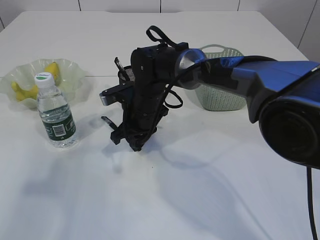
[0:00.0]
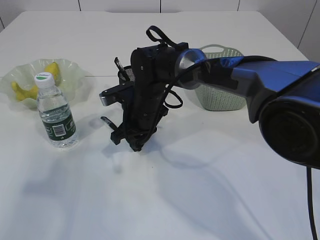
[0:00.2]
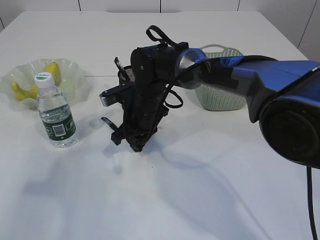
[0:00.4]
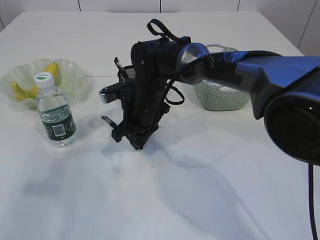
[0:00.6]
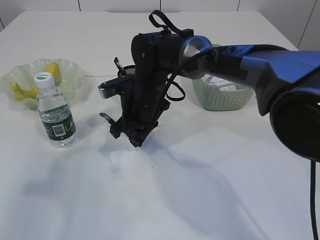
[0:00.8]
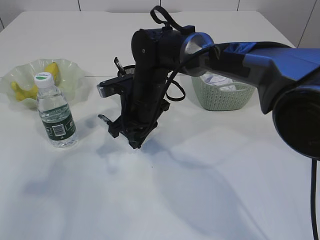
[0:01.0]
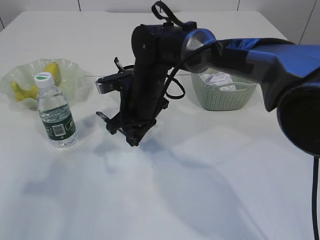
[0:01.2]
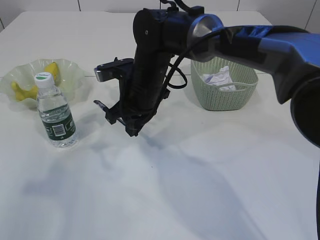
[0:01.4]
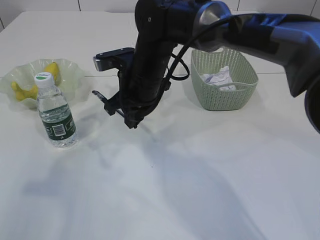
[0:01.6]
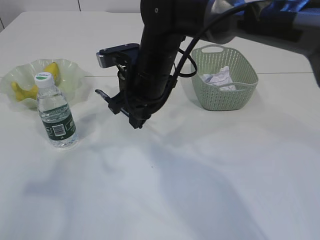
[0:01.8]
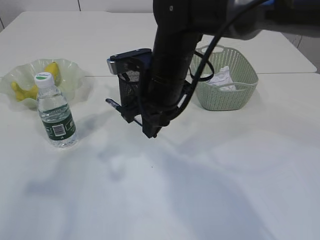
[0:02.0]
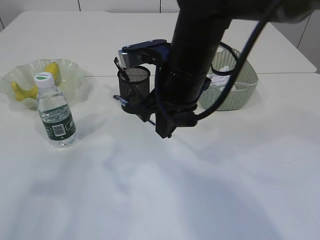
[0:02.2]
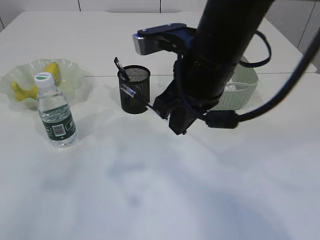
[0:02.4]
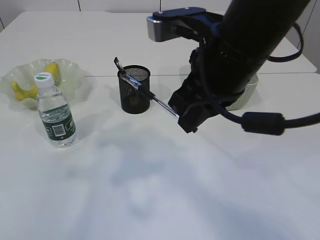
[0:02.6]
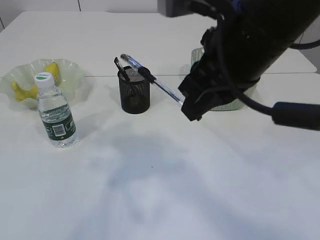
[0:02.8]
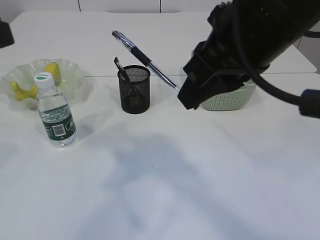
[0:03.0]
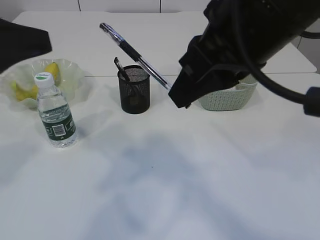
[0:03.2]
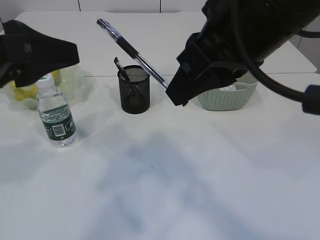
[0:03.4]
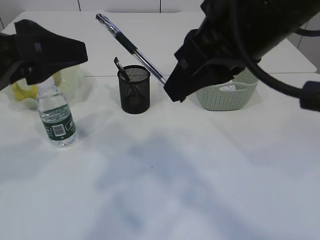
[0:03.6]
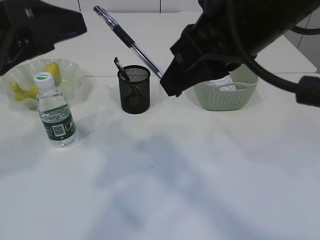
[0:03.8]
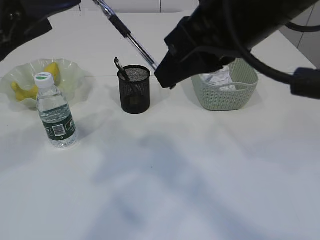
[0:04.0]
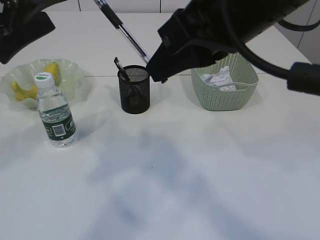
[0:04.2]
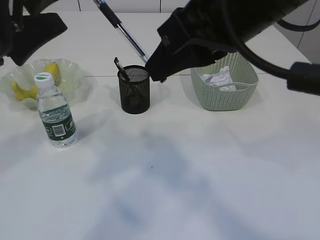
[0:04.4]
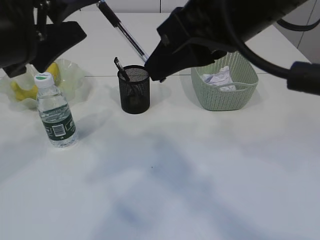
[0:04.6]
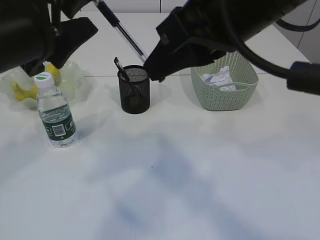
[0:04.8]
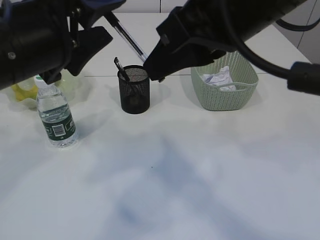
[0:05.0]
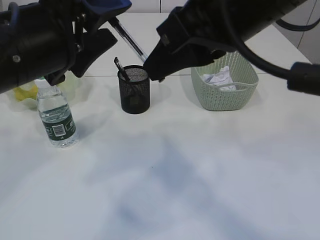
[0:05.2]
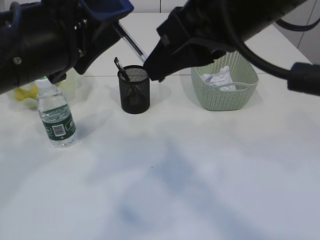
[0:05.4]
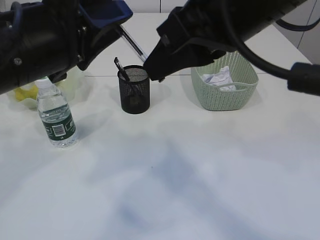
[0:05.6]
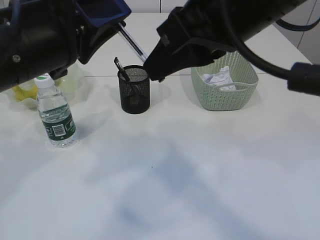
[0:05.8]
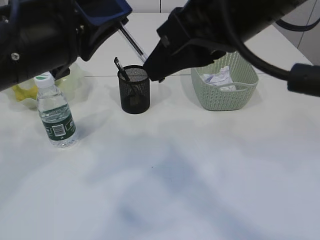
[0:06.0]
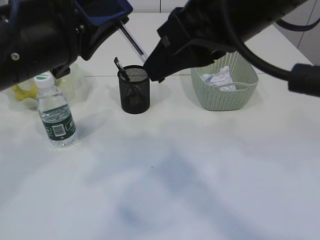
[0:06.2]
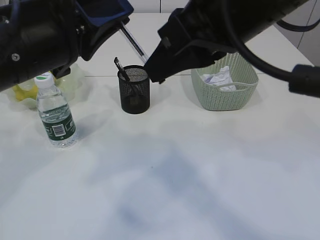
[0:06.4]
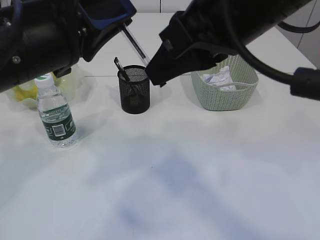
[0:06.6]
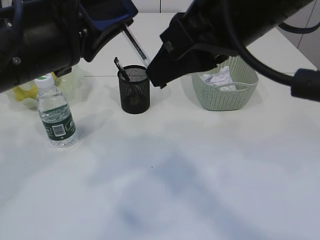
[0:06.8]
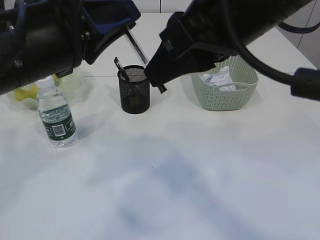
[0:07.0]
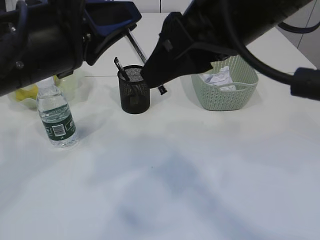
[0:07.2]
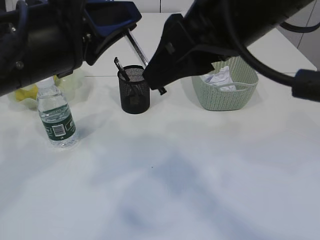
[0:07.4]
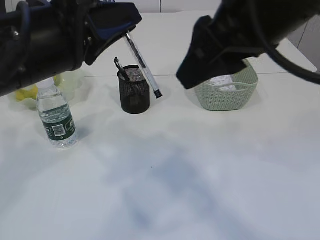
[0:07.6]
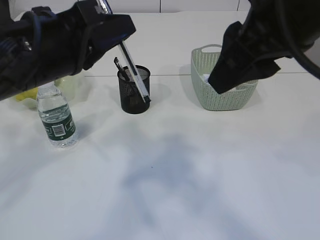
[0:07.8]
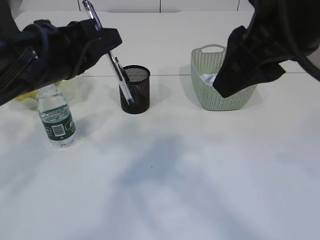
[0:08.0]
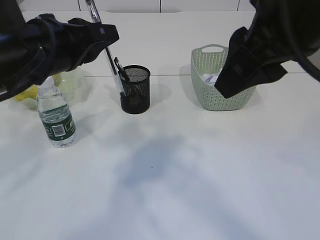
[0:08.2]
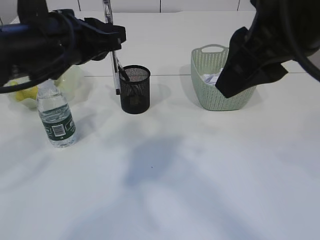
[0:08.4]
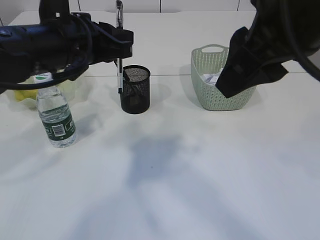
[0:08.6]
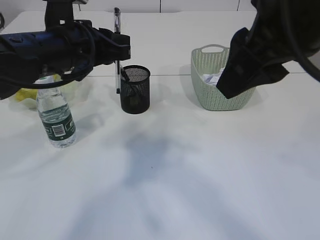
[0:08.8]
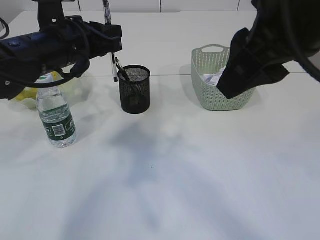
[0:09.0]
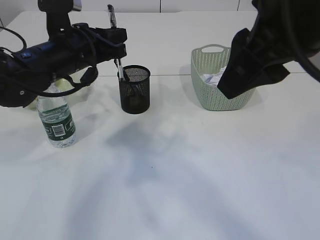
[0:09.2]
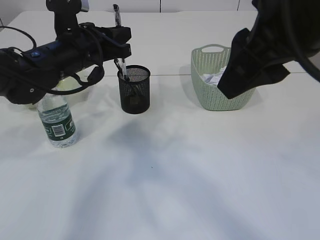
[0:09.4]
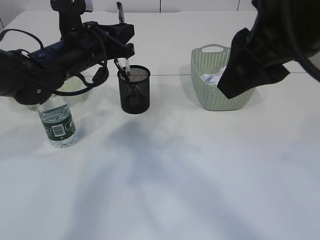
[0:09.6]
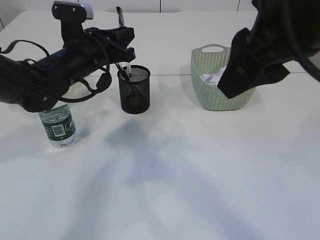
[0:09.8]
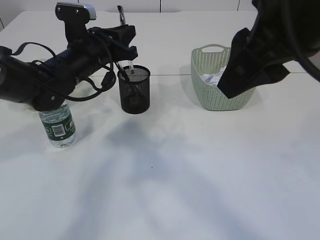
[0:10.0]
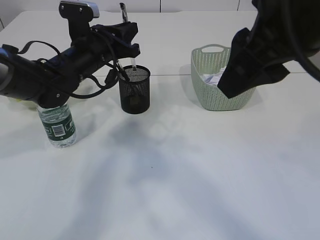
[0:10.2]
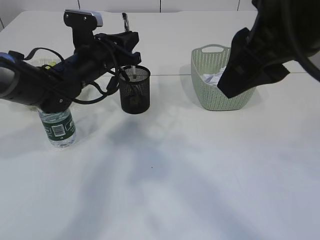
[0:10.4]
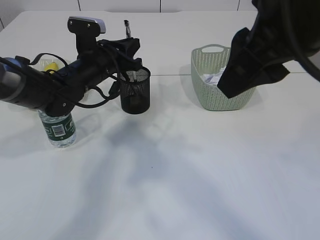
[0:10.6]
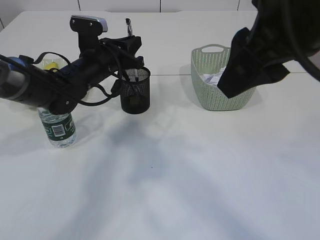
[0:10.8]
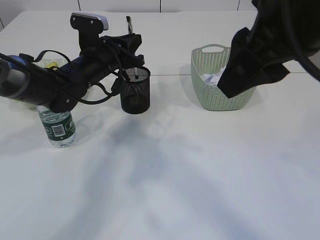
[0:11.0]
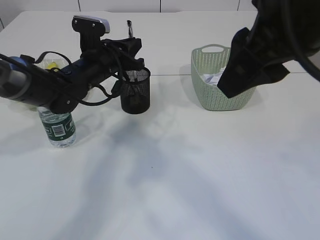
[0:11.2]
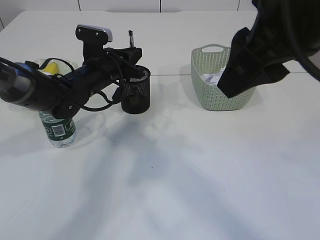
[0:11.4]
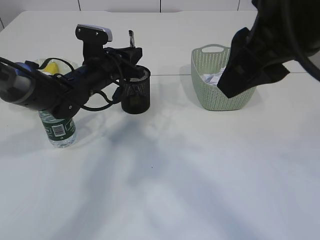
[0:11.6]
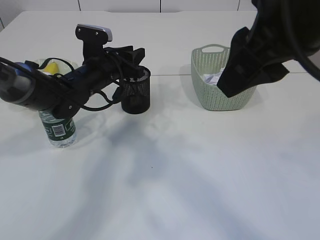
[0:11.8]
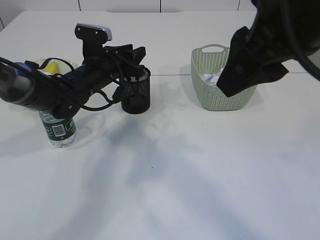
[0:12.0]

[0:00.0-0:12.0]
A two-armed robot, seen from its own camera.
Step, 0:01.4 to 0:07.8: transfer the pen to the left arm.
0:00.0 to 0:01.6: The right gripper shifts some 10 cm upward.
0:01.6 to 0:03.0: The left gripper shifts about 5 cm to the right. Meanwhile the right gripper goes some 25 cm backward, upward and to the right.
0:03.0 to 0:04.4: The left gripper travels to the right by approximately 5 cm, and opens.
0:04.4 to 0:06.0: The left gripper changes place by some 5 cm, and closes up.
0:06.0 to 0:07.6: The right gripper opens its fingers.
0:07.6 to 0:09.0: The left gripper travels forward and downward by some 15 cm.
0:09.0 to 0:10.4: The left gripper is displaced forward and downward by roughly 10 cm.
0:10.4 to 0:12.0: The left gripper opens its fingers.

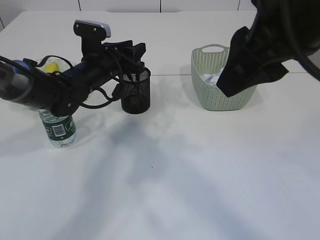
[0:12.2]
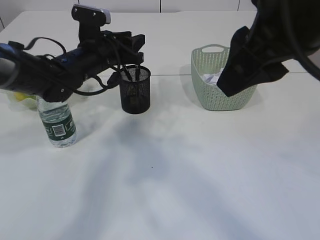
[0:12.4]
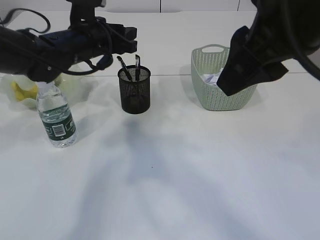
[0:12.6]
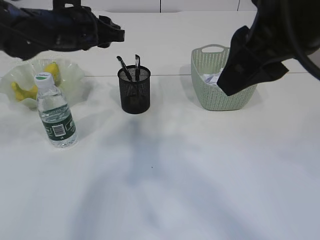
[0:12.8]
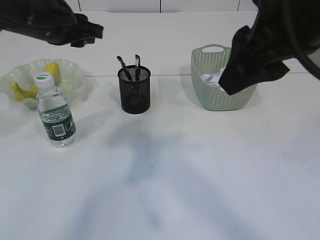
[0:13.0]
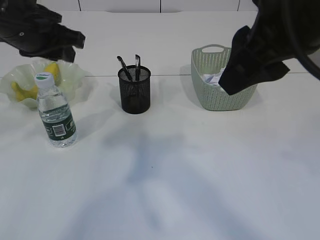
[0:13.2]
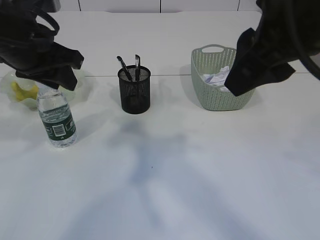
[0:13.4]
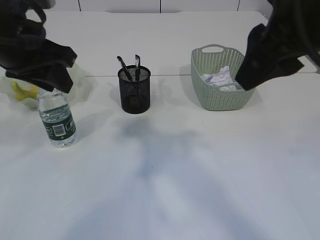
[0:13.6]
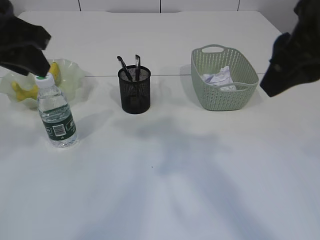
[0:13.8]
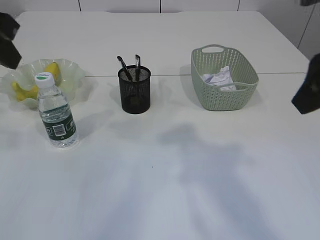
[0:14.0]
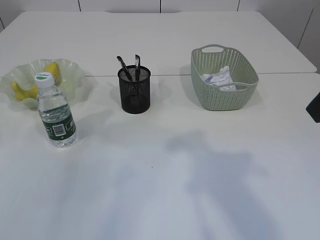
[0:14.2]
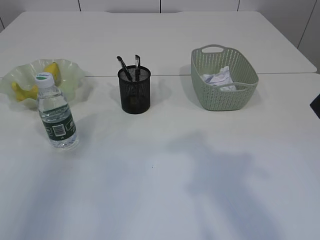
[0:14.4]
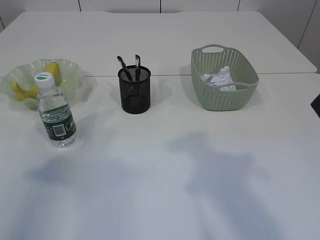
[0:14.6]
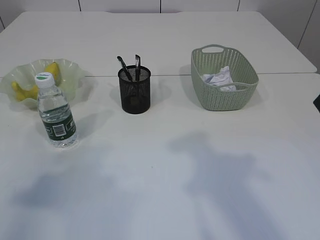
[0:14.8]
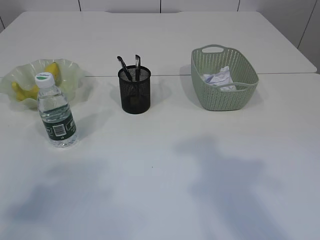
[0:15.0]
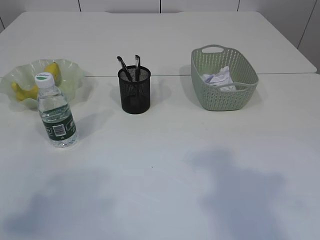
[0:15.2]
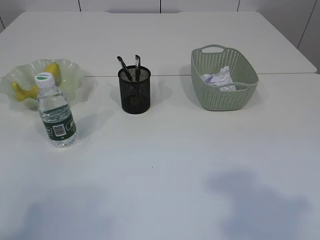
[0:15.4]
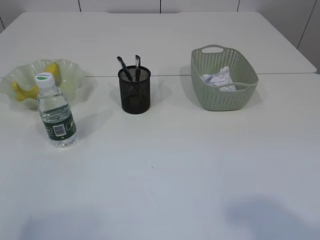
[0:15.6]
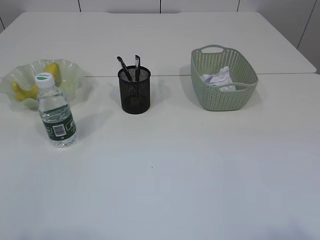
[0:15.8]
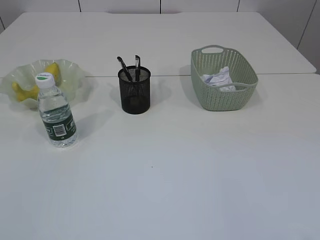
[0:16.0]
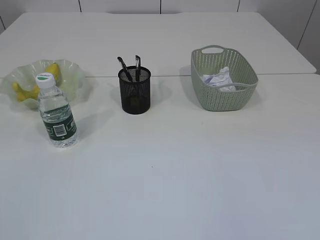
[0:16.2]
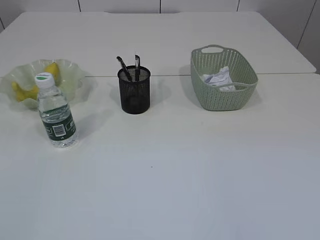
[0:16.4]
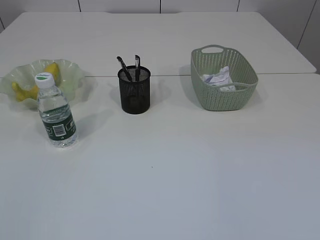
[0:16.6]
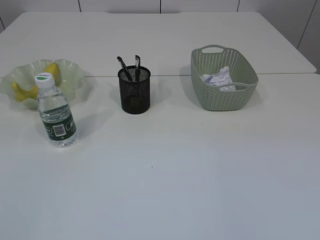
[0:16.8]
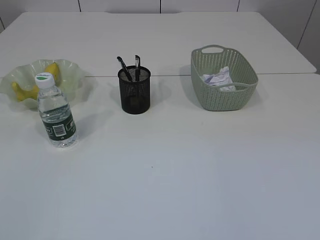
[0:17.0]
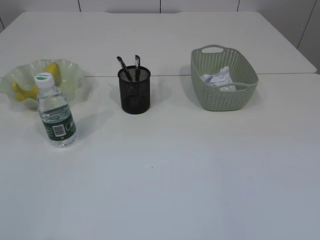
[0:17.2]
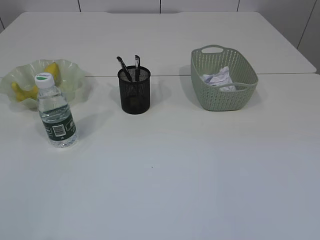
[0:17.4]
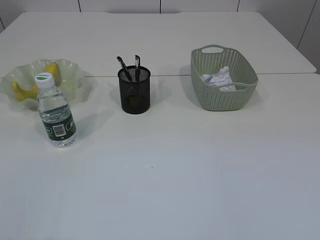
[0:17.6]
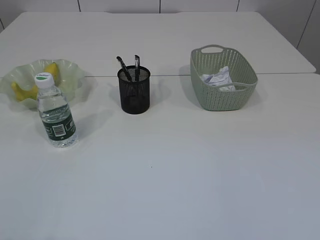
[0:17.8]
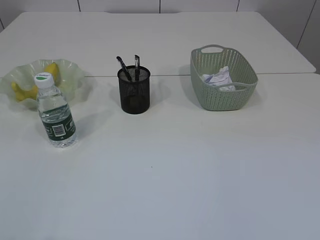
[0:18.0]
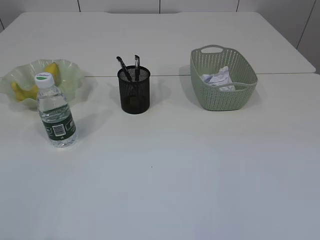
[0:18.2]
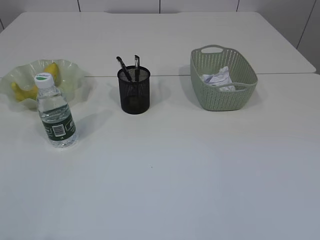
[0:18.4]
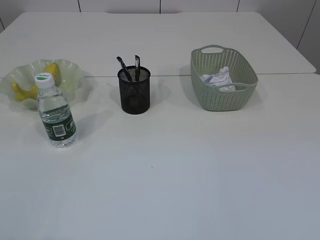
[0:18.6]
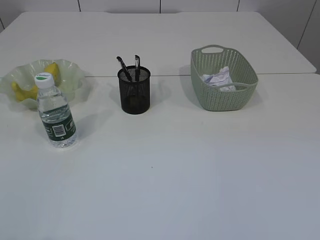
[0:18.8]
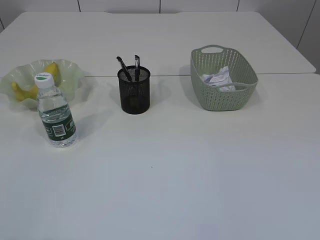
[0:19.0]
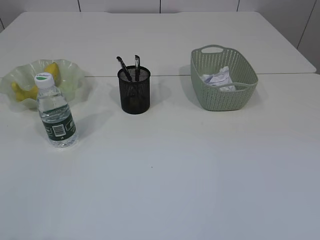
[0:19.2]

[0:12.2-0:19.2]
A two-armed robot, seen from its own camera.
0:12.2 to 0:13.6: The left gripper travels upward, backward and to the left by approximately 20 cm.
0:13.6 to 0:15.0: The left gripper moves backward and to the left, roughly 25 cm. The right gripper shifts about 10 cm to the right and backward.
0:15.0 to 0:16.4: The left gripper moves backward, roughly 15 cm.

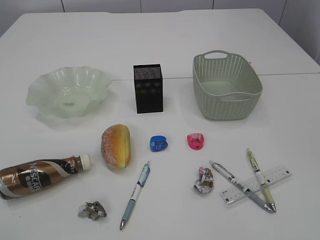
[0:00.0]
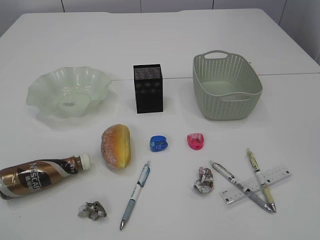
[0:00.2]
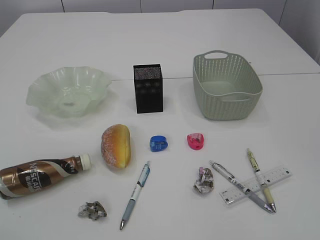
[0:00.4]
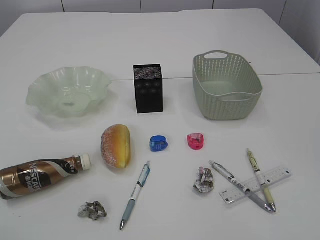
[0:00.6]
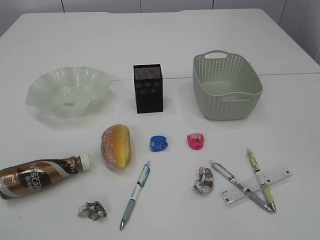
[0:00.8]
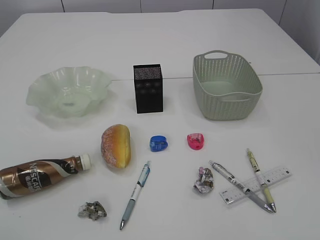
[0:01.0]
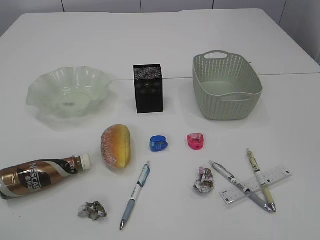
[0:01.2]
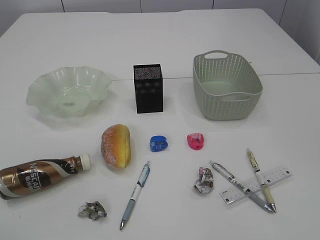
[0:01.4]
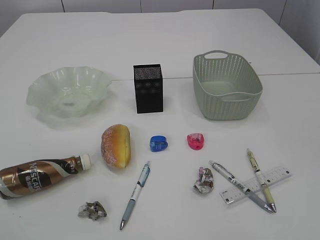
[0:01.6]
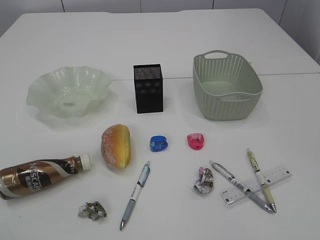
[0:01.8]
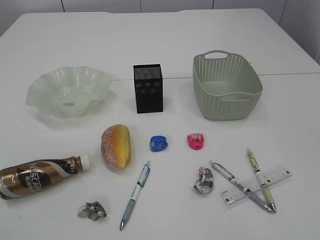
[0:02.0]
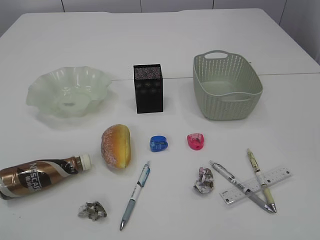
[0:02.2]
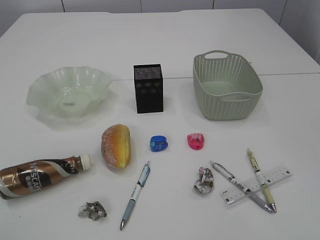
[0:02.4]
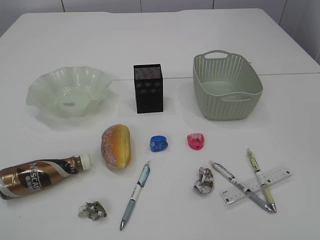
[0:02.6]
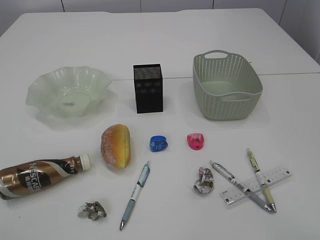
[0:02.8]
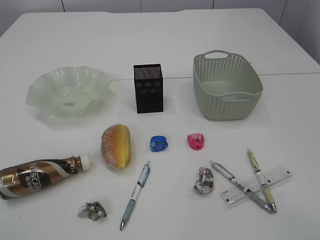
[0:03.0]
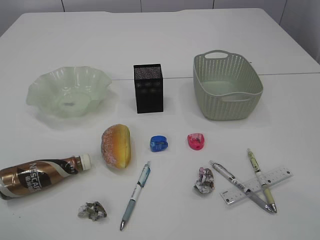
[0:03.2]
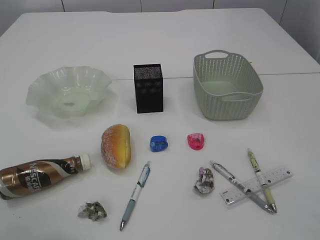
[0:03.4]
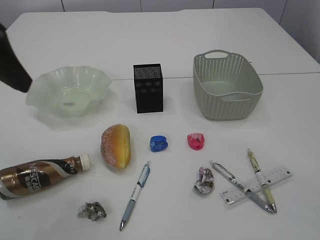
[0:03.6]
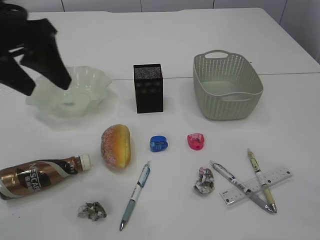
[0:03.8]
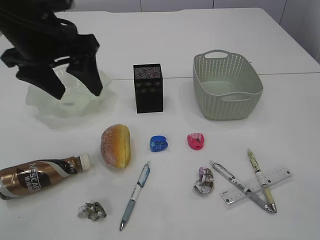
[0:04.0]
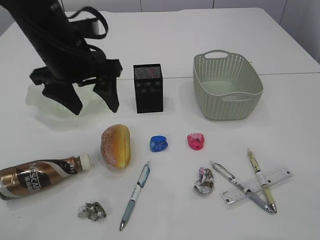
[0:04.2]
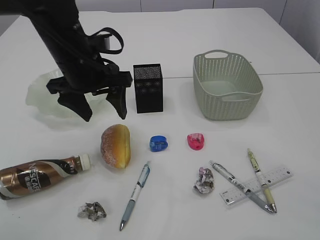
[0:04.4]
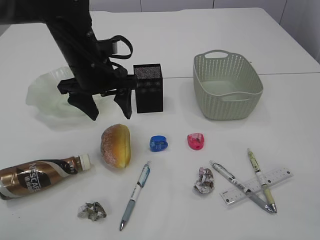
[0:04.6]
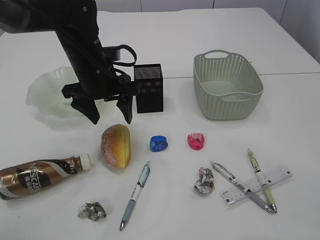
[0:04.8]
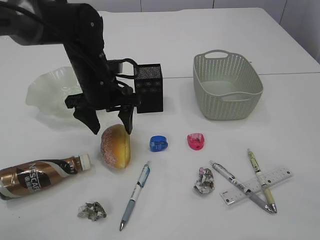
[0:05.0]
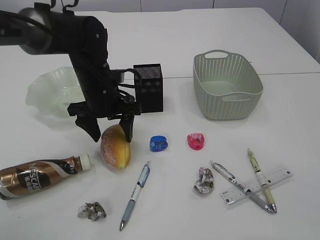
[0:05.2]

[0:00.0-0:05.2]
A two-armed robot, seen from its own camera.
0:03.4 to 0:05.2: The left gripper shifts some 35 cm downward, forward and to the right.
